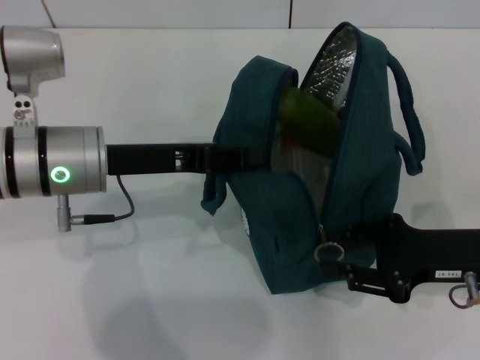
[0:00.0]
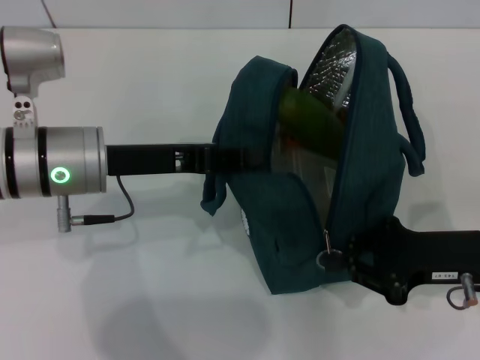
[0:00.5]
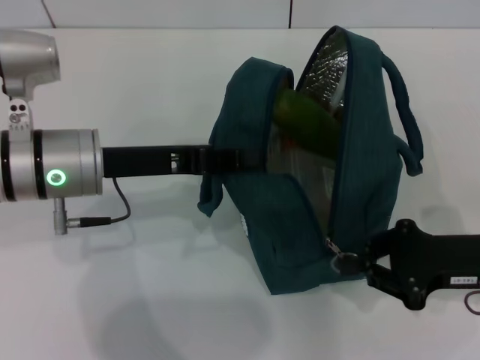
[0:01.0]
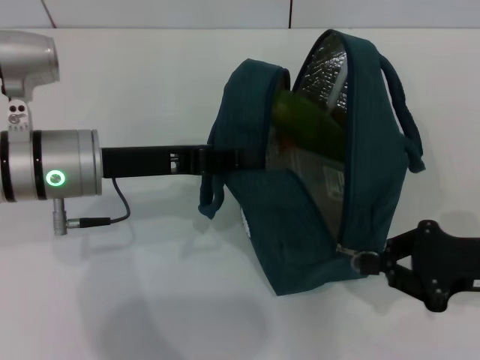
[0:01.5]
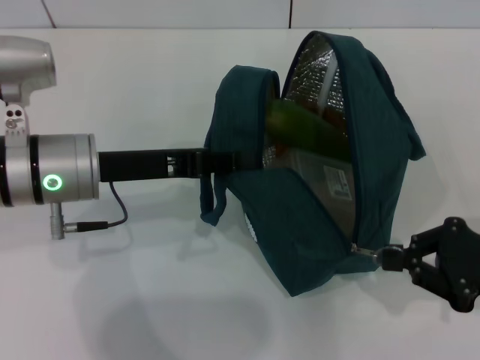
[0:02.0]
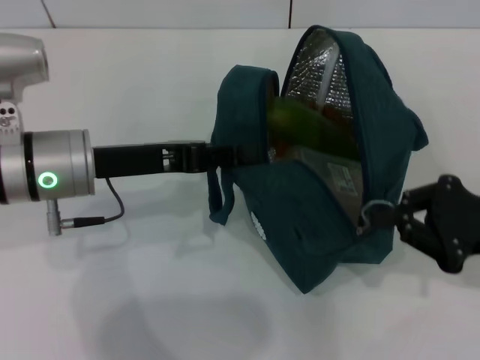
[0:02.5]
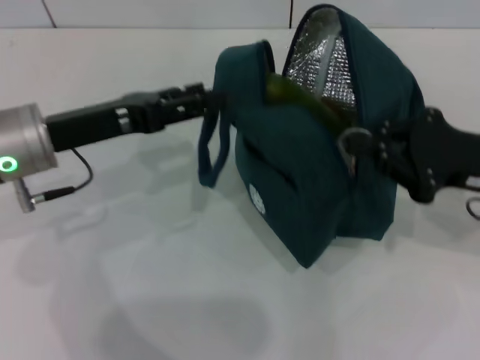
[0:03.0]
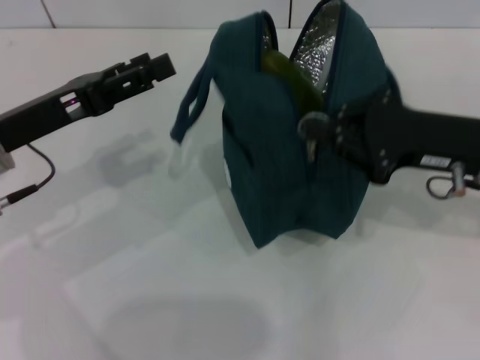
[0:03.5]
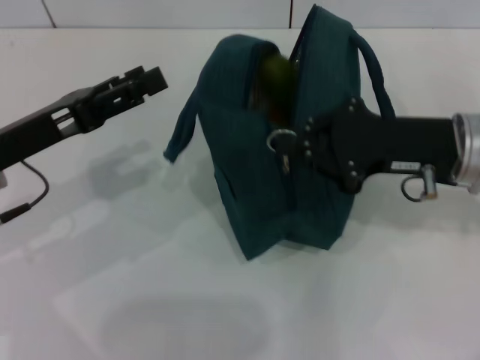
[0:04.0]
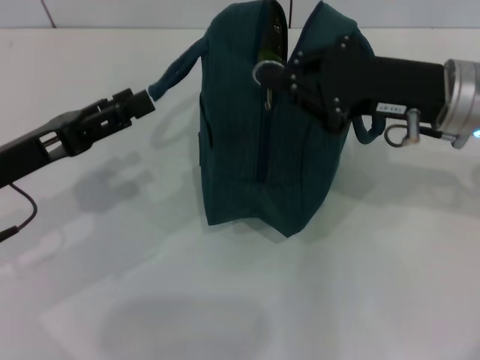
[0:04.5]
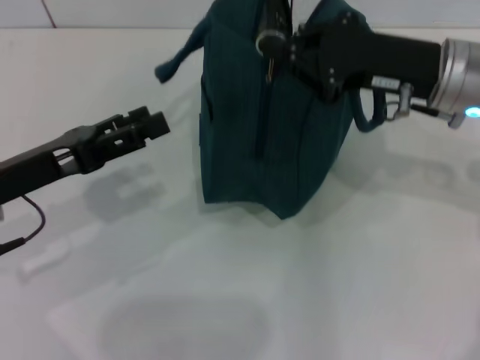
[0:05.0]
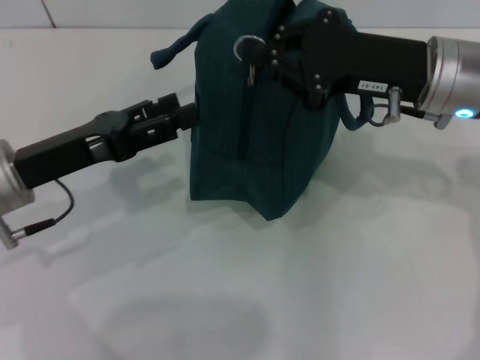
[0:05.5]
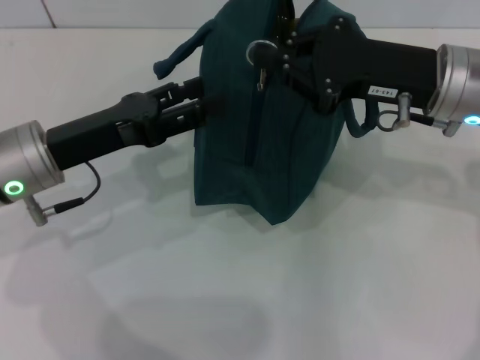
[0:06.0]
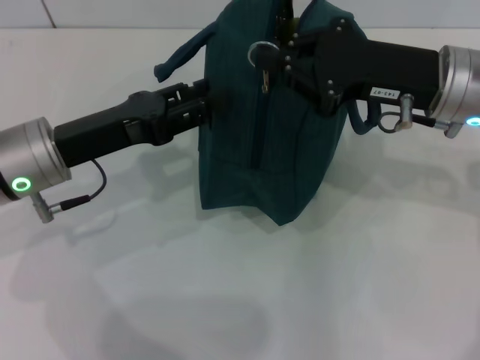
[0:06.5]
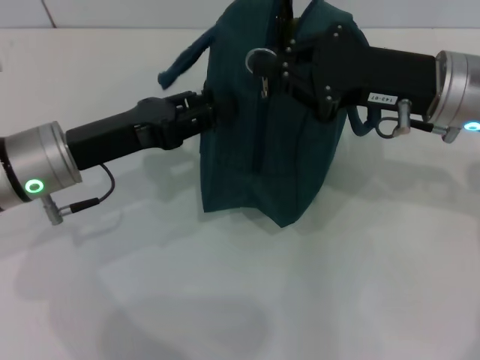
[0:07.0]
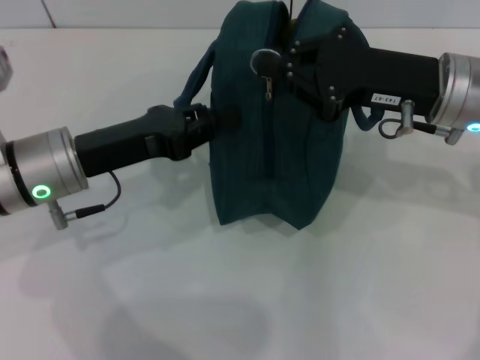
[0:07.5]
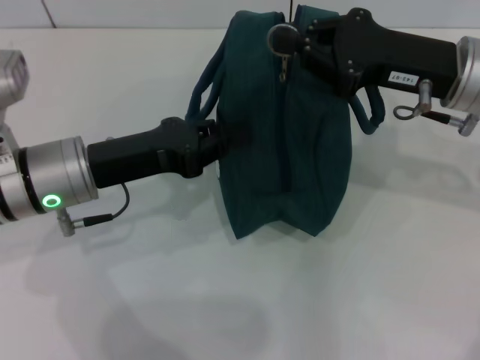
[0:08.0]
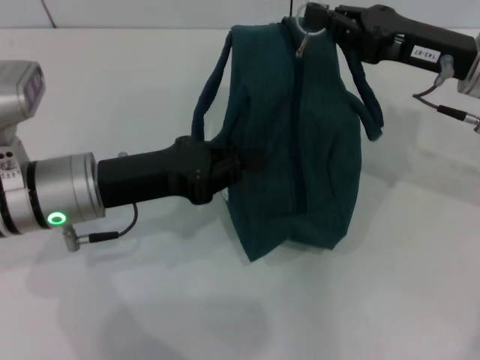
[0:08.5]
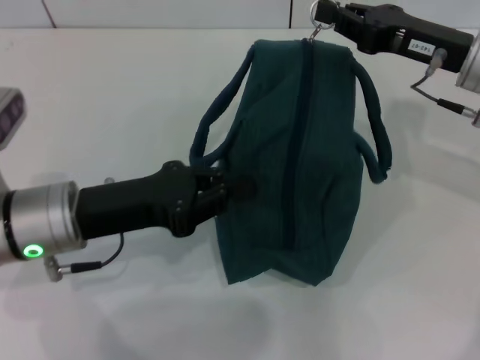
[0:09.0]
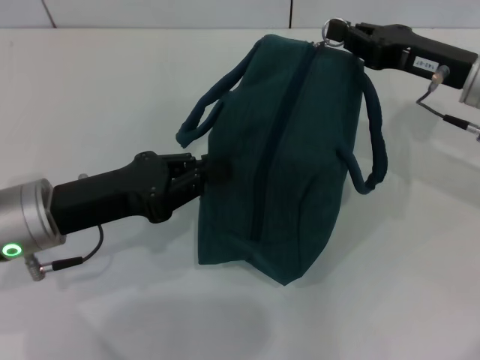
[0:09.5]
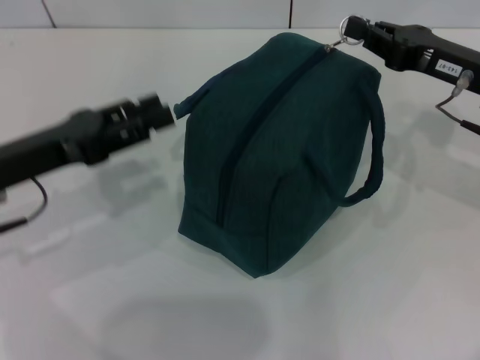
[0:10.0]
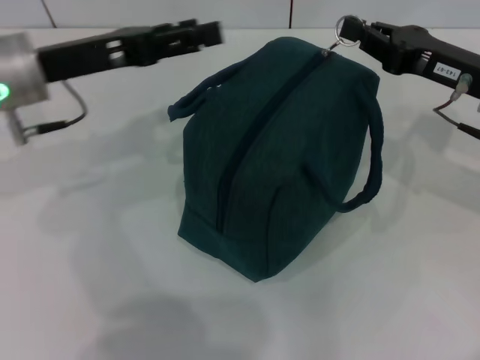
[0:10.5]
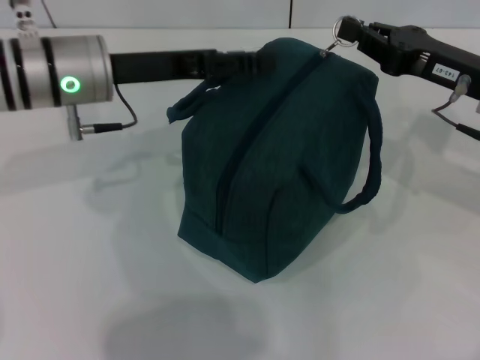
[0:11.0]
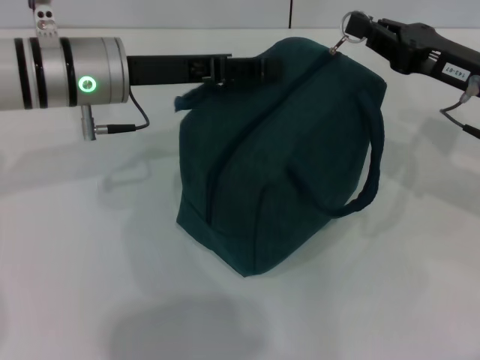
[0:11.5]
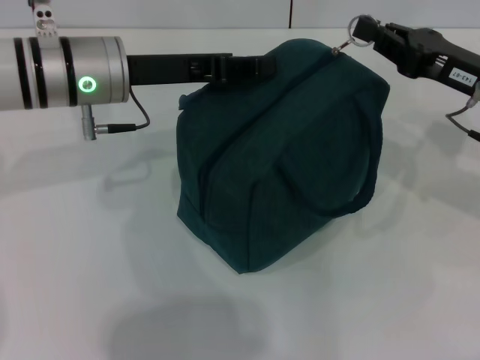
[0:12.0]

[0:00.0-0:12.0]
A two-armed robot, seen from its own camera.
0:00.0 to 0:02.0: The right gripper ends up approximately 5 cm from where it was, and closes up.
0:02.0 to 0:04.0: The left gripper heads to the left, covering roughly 5 cm, and opens its fingers, while the right gripper travels to the left, forward and upward by some 15 cm.
0:04.0 to 0:06.0: The right gripper changes place by about 5 cm.
0:06.0 to 0:08.0: The left gripper closes up.
0:08.0 to 0:10.0: The left gripper goes approximately 5 cm to the left. Meanwhile the right gripper shifts by some 5 cm.
0:10.0 to 0:12.0: The left gripper shifts some 15 cm forward and to the right, and opens, then closes again.

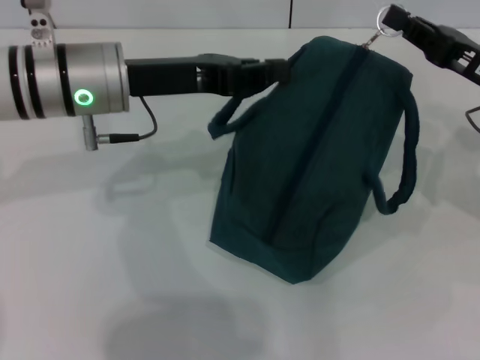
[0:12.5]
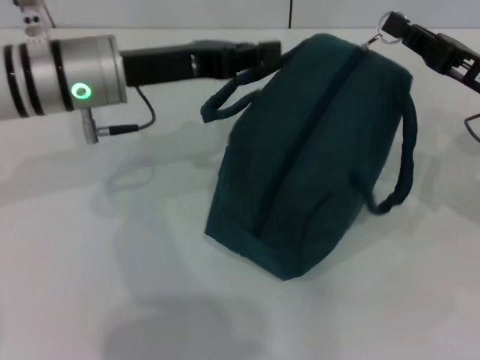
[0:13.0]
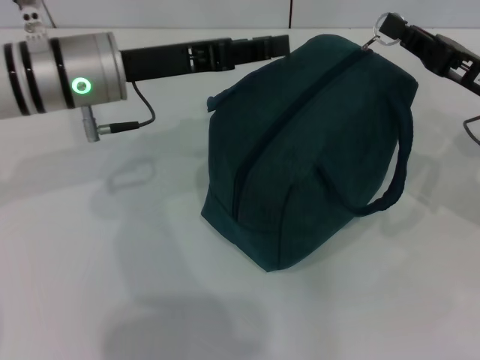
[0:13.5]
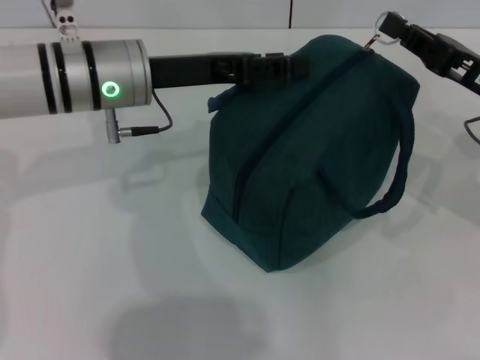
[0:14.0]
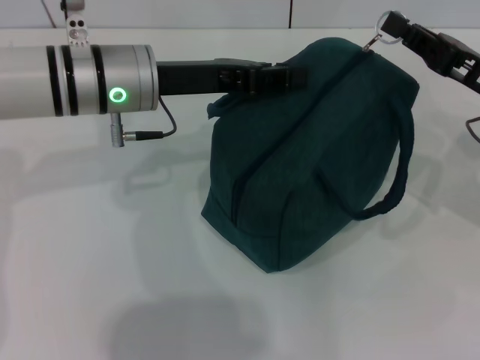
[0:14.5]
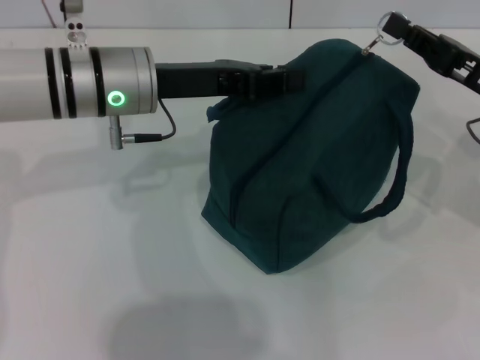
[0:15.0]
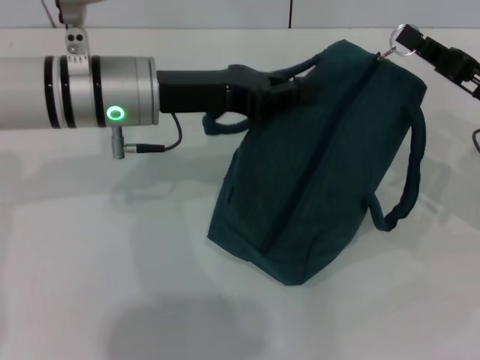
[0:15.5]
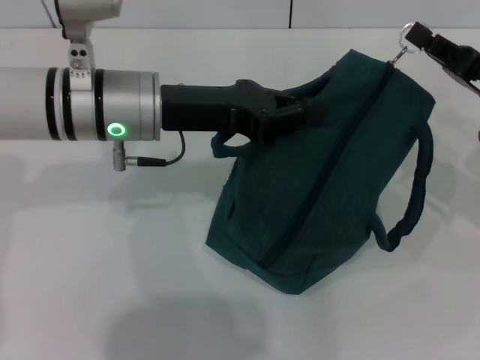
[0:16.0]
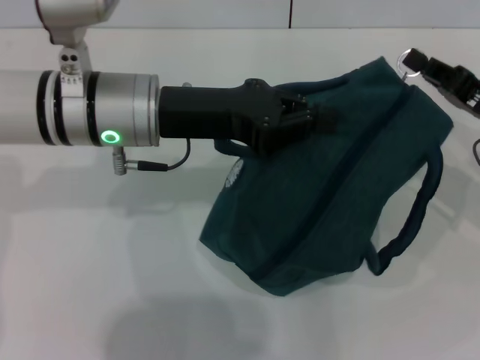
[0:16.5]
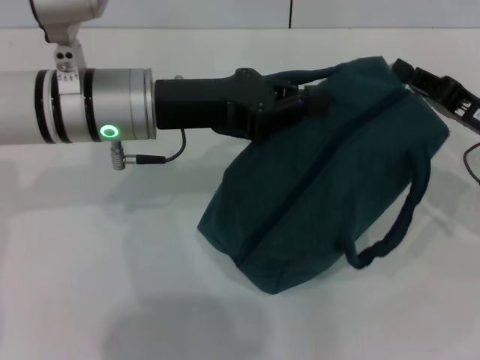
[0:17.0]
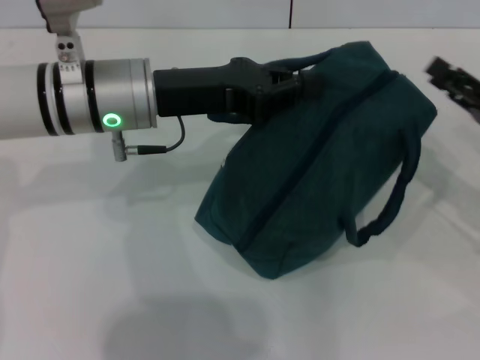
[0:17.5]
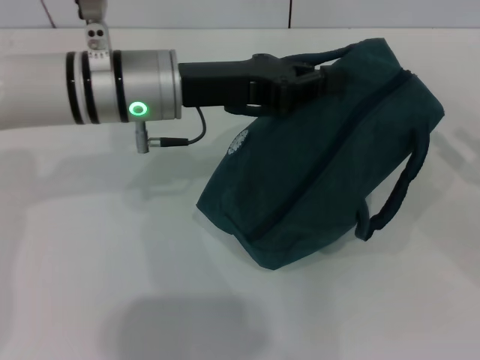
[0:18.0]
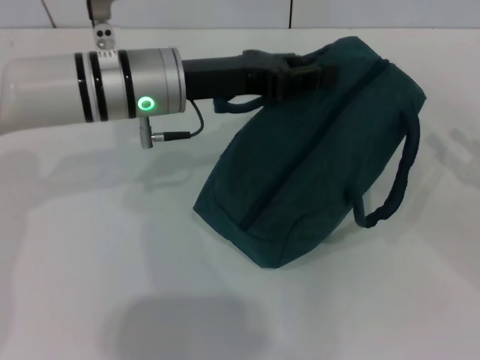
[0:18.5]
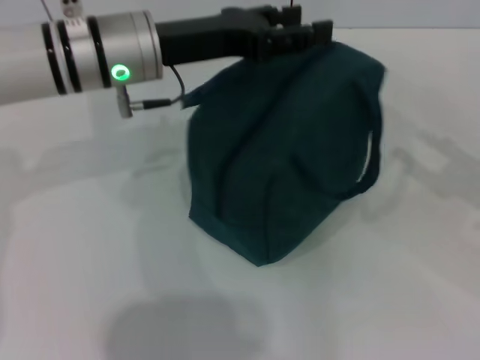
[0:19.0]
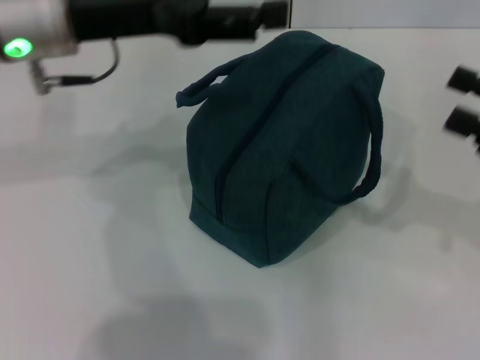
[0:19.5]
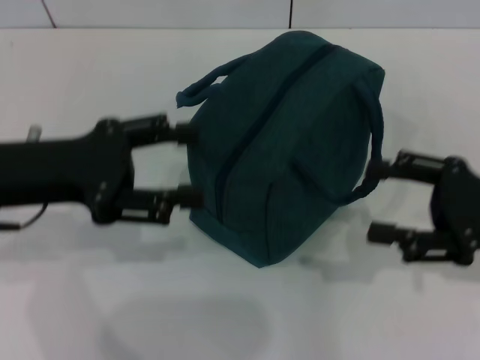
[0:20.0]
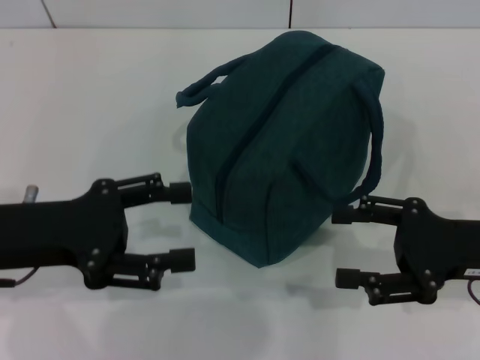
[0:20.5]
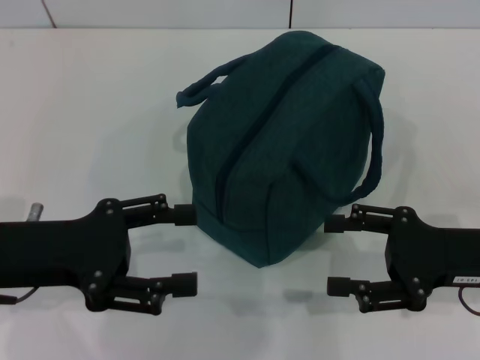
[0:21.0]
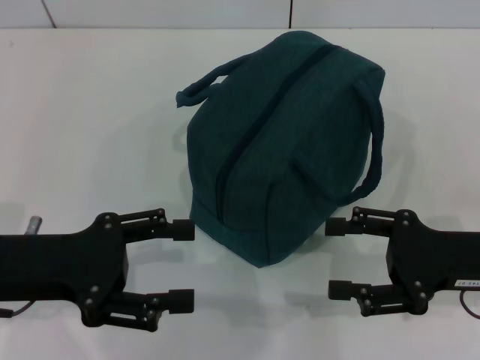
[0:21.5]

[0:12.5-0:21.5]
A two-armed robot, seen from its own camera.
Step, 0:12.5 to 0:17.0: Zip up the lunch bag with your right hand.
Step, 0:18.0 to 0:18.5: Hold the lunch bag with your left hand.
0:12.5 to 0:14.5: The grippers make only small movements.
0:14.5 to 0:17.0: The left gripper closes.
0:17.0 to 0:19.5: The right gripper heads upward, to the right and backward, covering about 10 cm, and opens up. Meanwhile the left gripper goes roughly 5 cm upward, and opens its fingers.
0:19.5 to 0:21.5: The left gripper is displaced backward, downward and to the left by some 20 cm. Meanwhile the right gripper goes some 10 cm to the left and downward.
